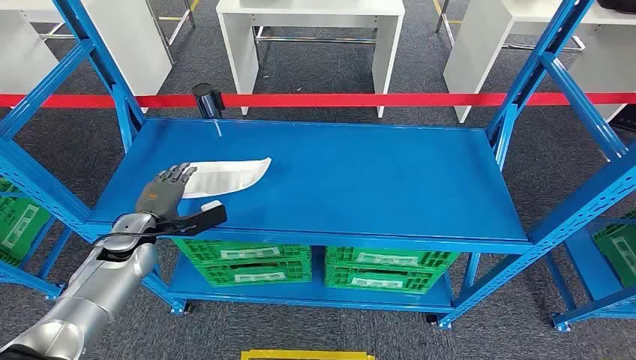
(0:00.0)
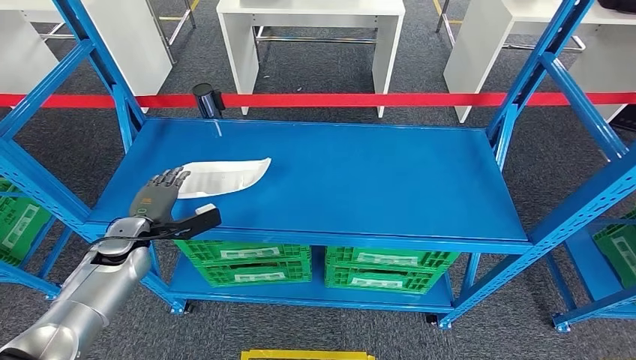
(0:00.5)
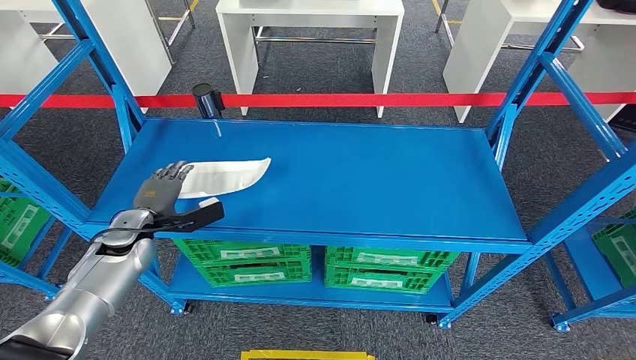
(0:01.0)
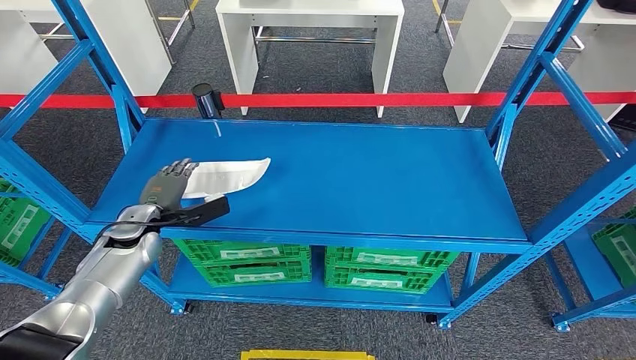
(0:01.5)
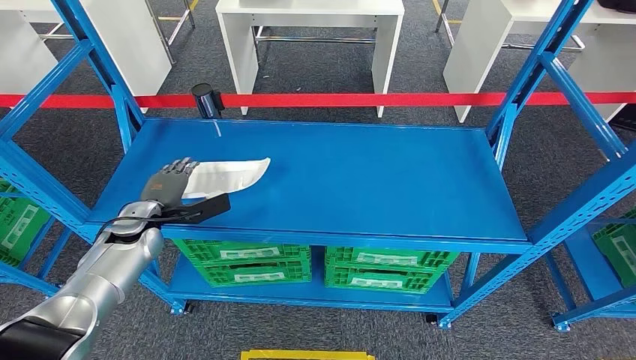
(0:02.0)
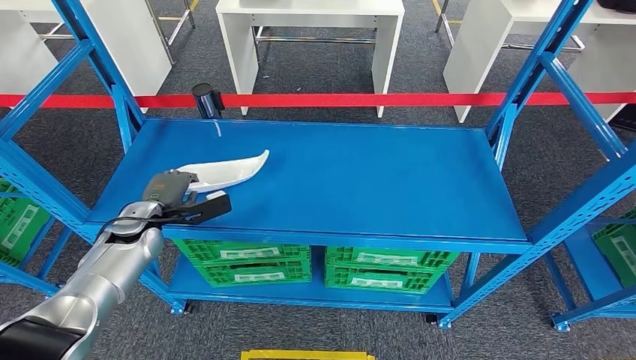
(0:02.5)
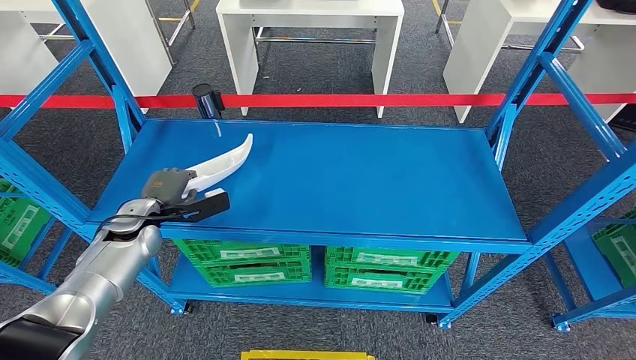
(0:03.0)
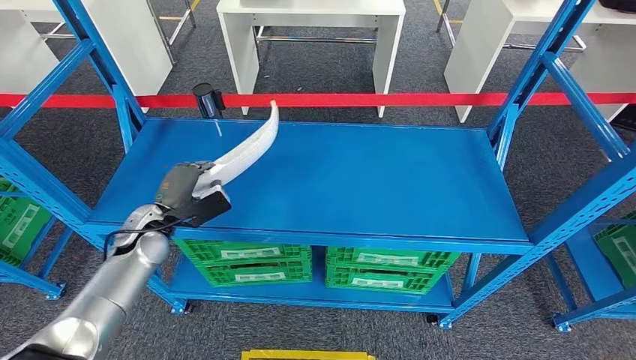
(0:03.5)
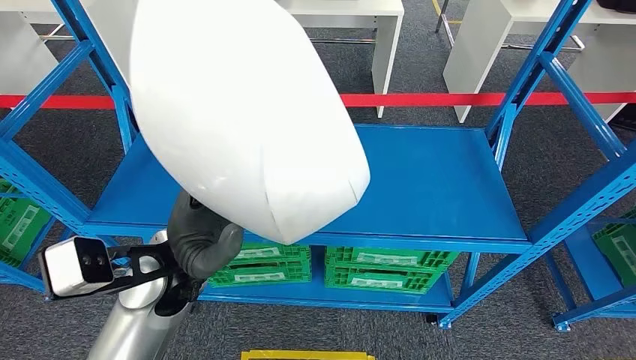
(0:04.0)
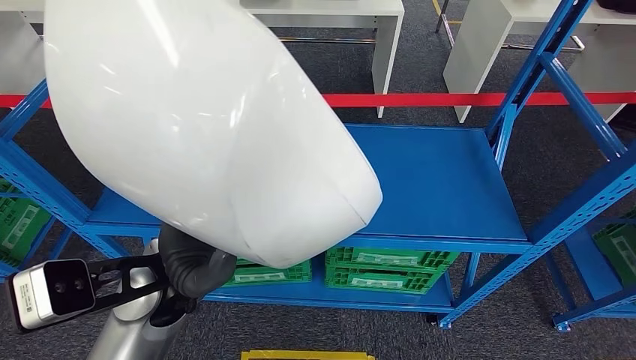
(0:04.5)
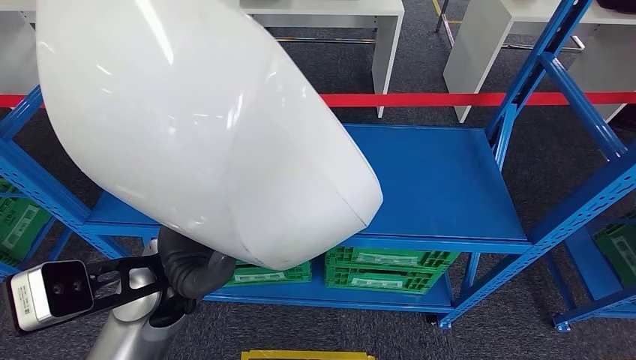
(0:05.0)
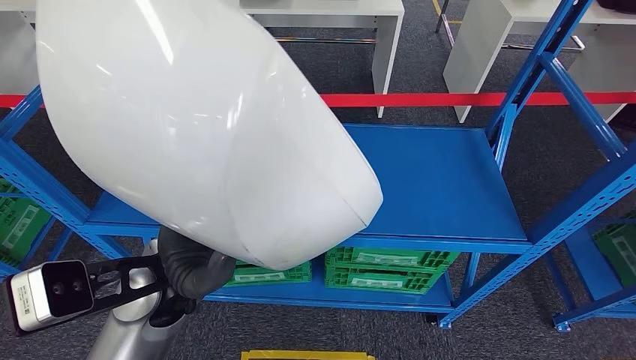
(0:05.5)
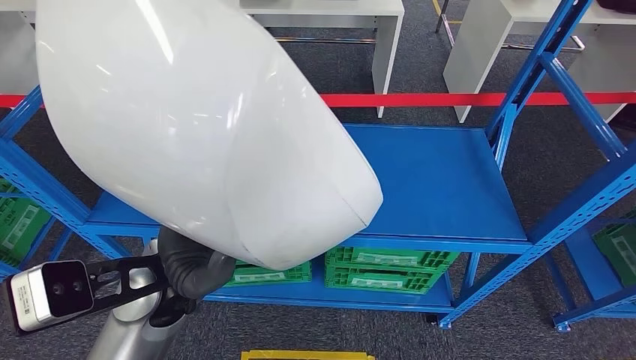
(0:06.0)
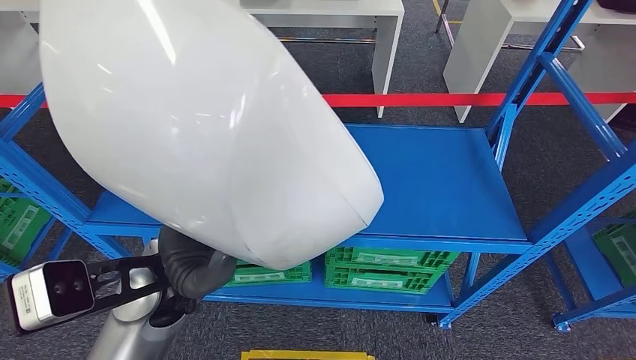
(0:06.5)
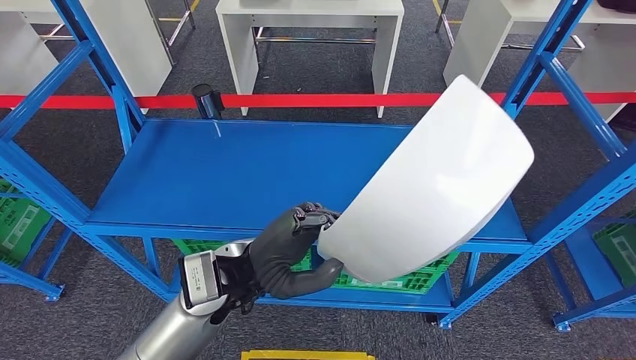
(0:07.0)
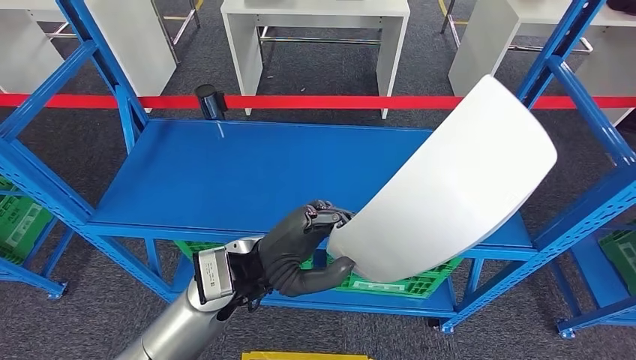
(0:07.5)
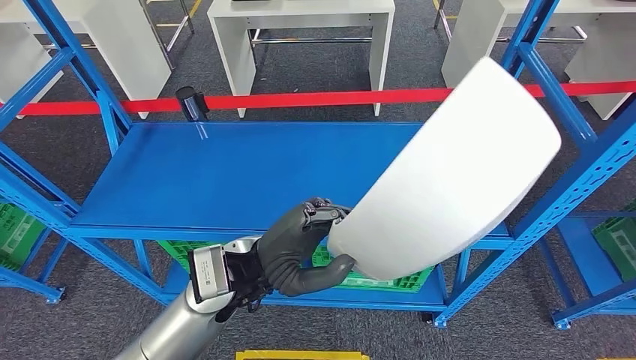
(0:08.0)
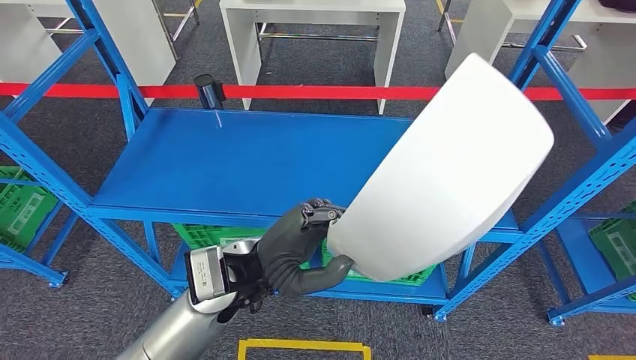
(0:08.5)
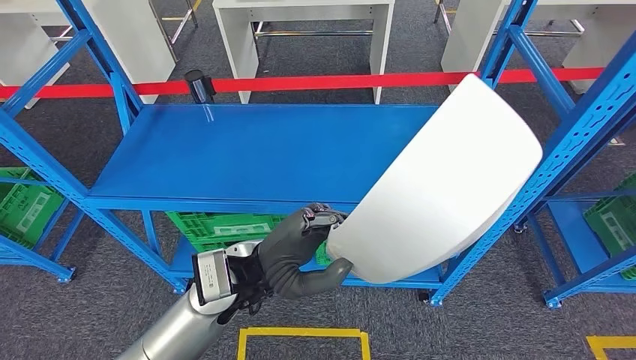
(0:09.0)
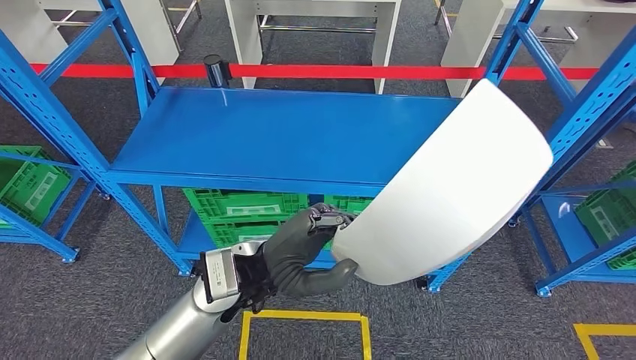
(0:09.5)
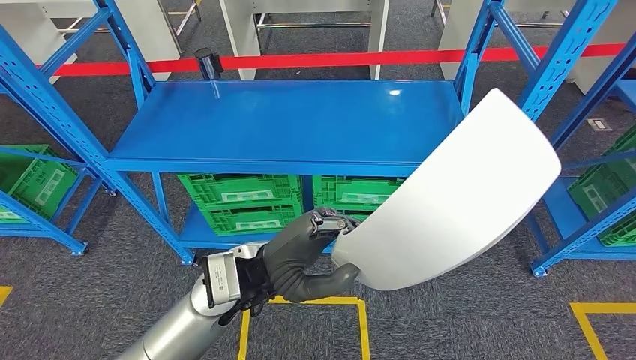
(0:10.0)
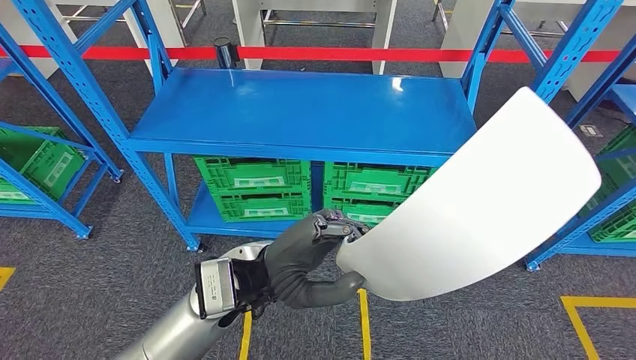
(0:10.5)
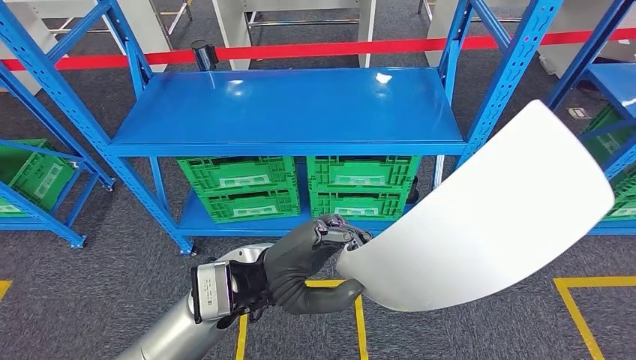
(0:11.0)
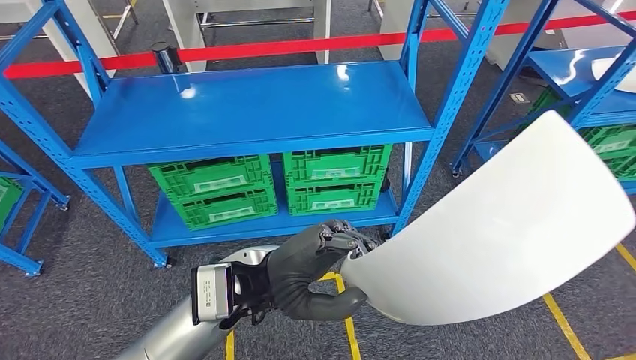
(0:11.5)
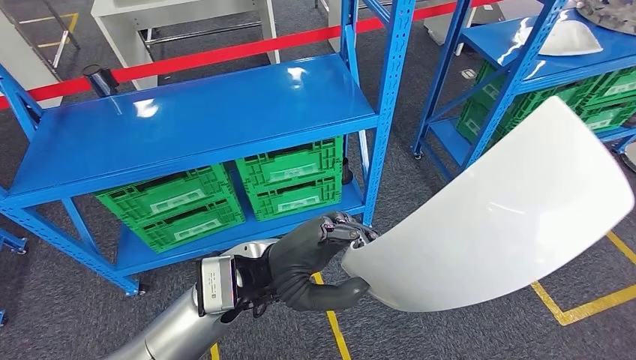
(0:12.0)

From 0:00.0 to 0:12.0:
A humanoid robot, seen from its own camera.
Step, from 0:00.0 to 0:04.0: Pick up the small component from the shelf.

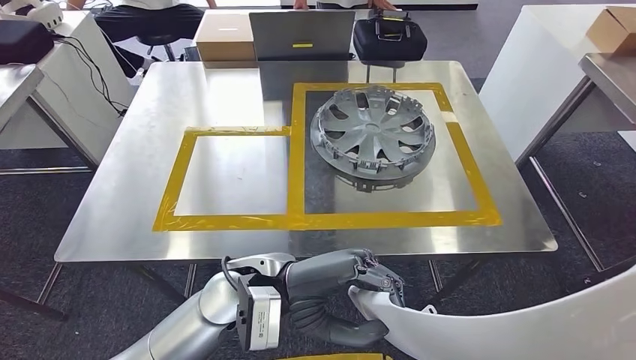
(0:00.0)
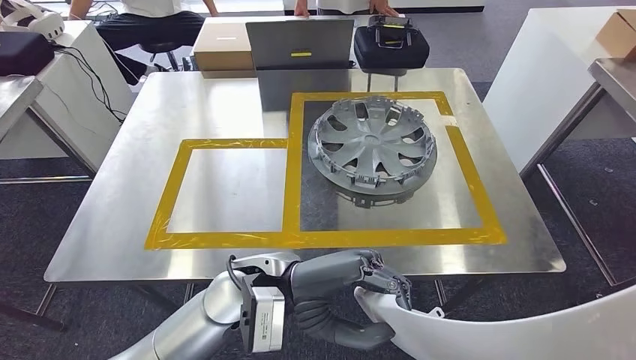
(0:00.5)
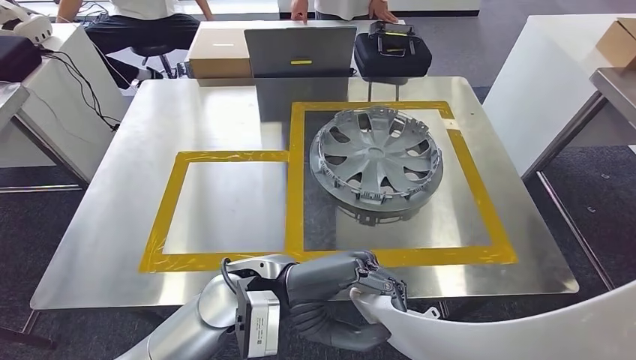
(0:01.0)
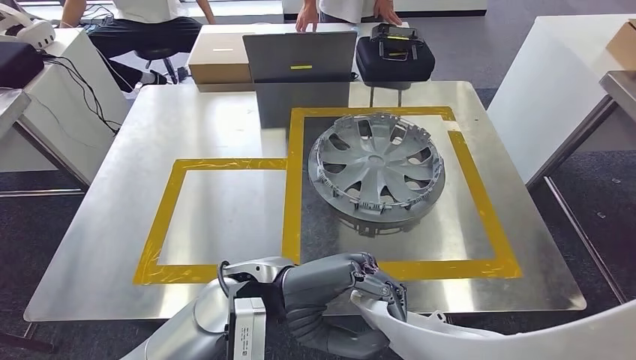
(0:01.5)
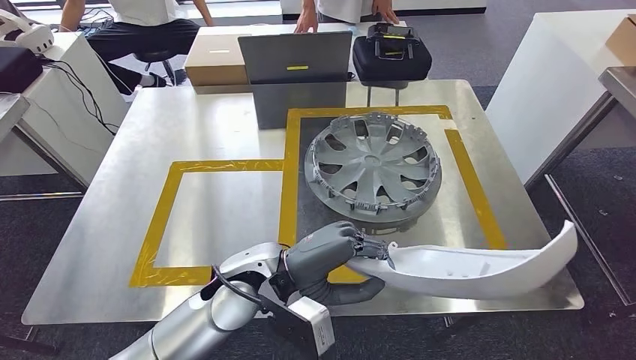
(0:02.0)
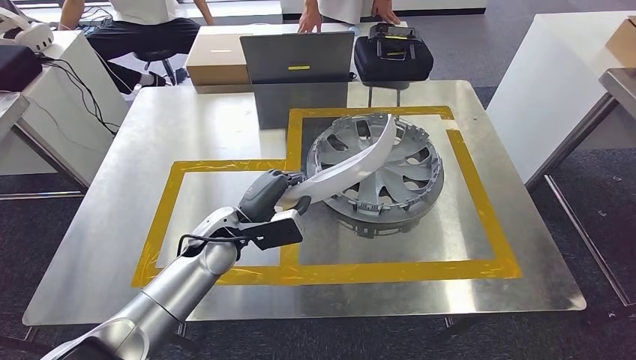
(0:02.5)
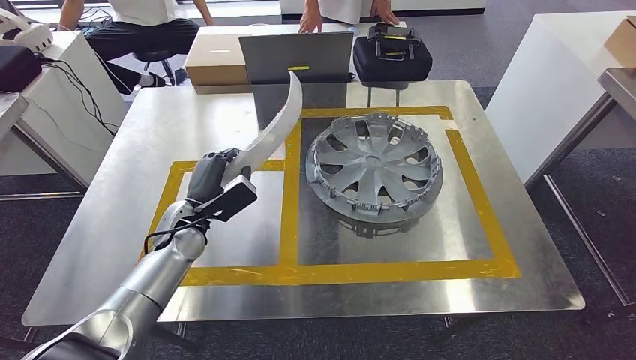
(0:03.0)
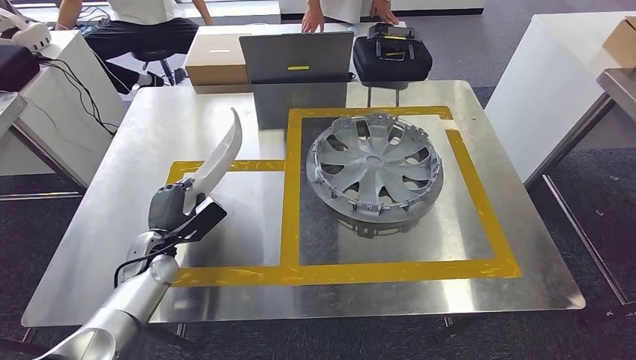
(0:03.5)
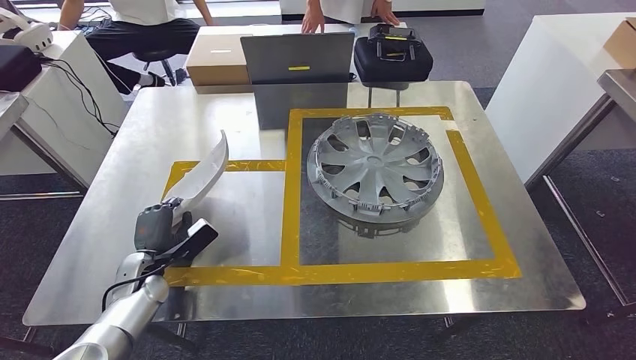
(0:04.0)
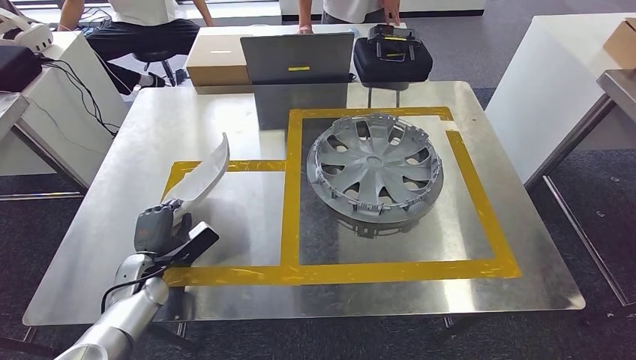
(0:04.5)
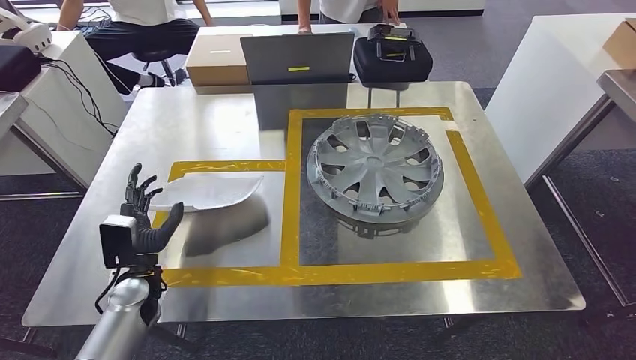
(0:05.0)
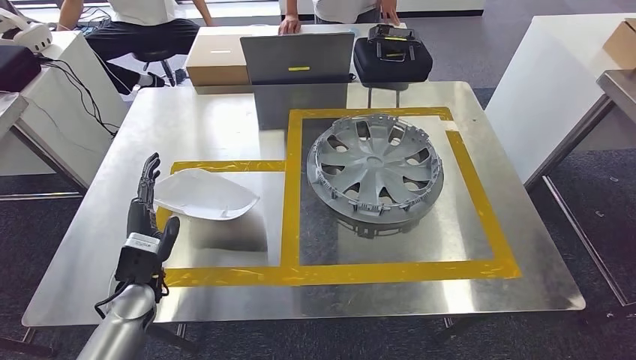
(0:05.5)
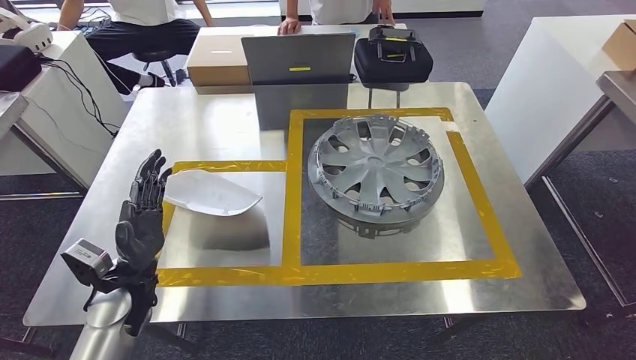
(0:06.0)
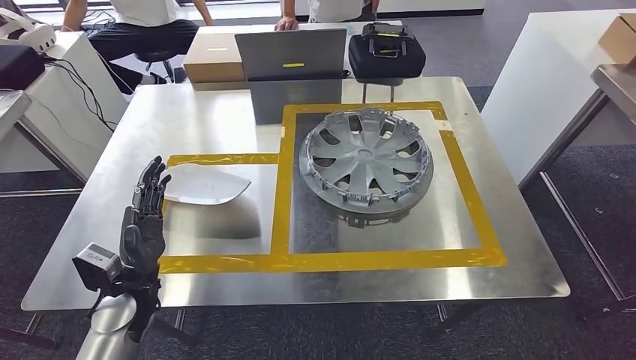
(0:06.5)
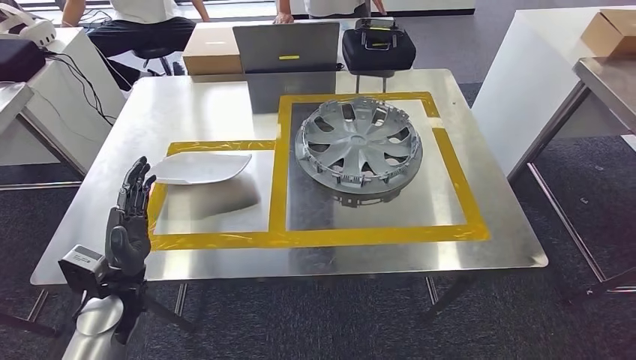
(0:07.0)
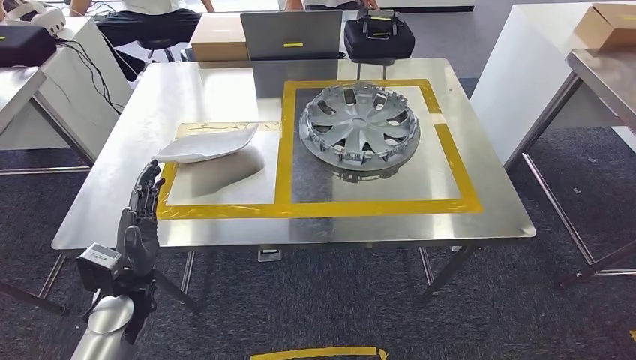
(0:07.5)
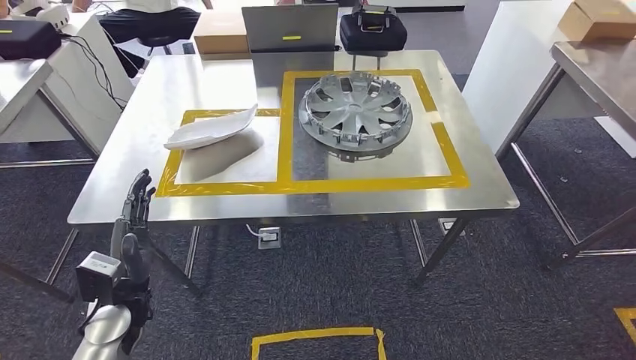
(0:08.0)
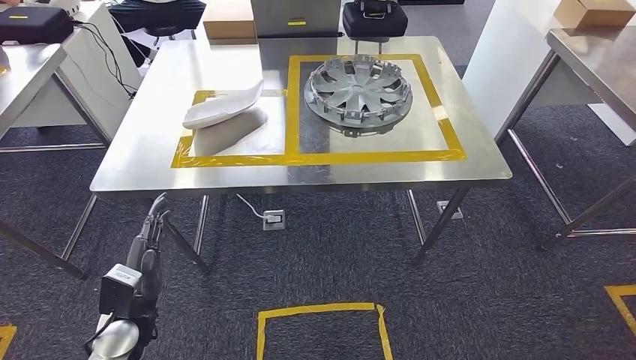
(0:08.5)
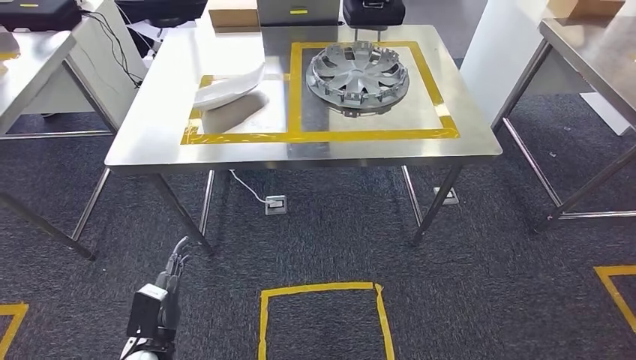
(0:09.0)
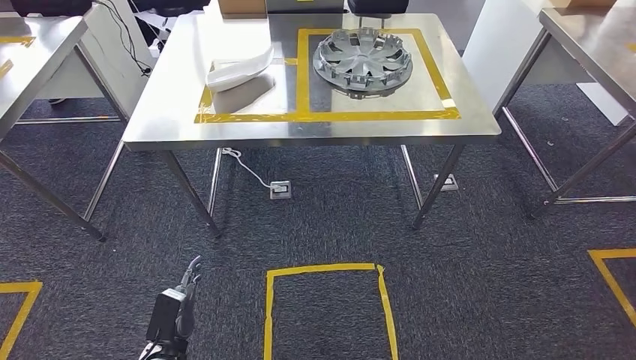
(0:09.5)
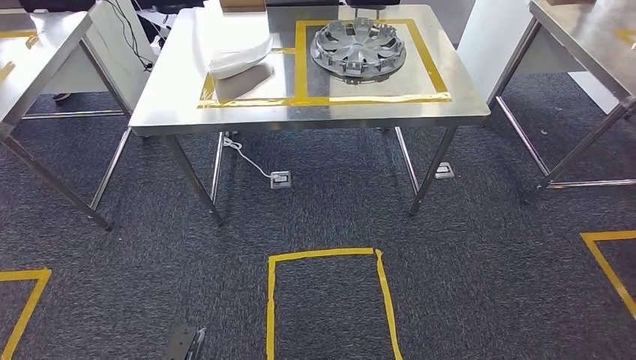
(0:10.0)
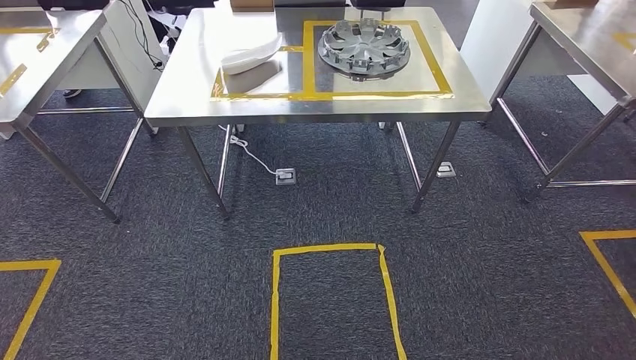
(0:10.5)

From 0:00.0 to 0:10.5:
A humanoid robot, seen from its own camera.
Step, from 0:00.0 to 0:02.5: Bring the small component to the front of the workbench.
Step, from 0:03.0 to 0:06.0: Insert the small component into the corresponding slot on the workbench.
Step, from 0:06.5 to 0:10.5: Move to the initial position of the workbench.
